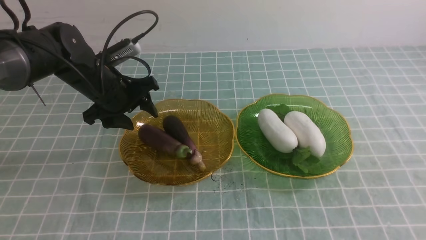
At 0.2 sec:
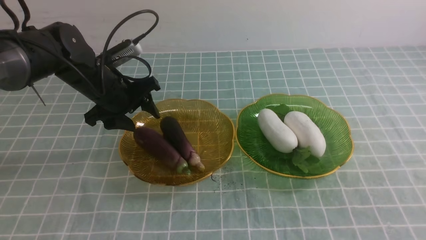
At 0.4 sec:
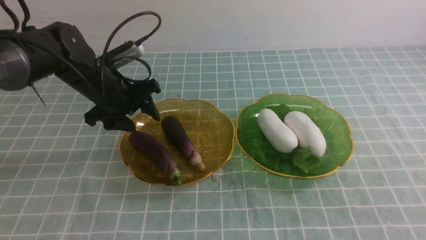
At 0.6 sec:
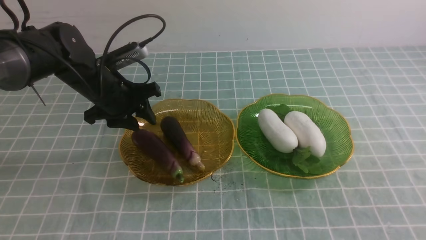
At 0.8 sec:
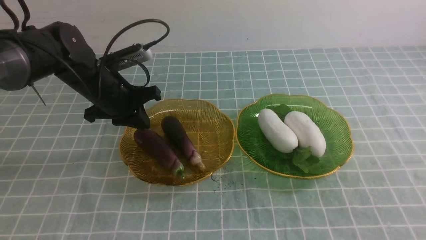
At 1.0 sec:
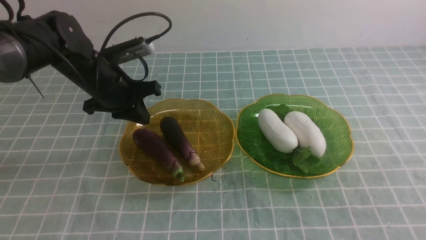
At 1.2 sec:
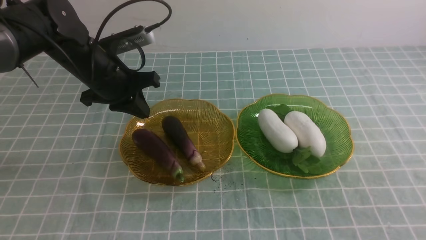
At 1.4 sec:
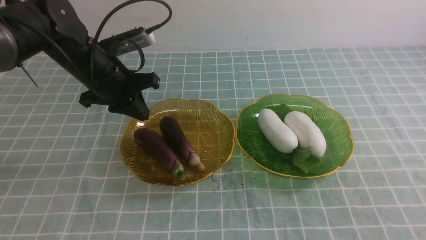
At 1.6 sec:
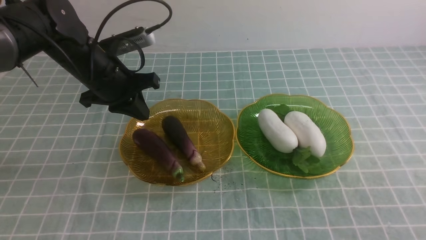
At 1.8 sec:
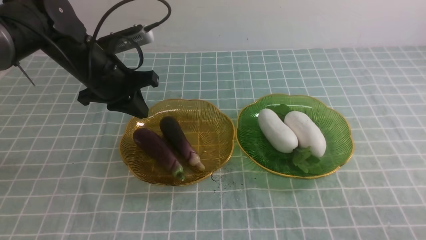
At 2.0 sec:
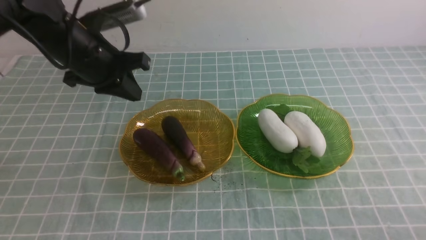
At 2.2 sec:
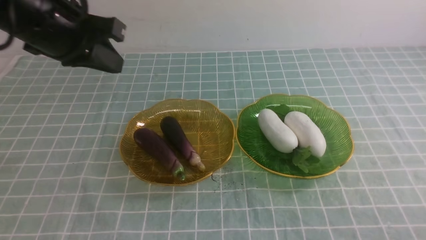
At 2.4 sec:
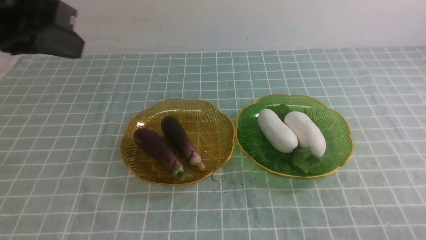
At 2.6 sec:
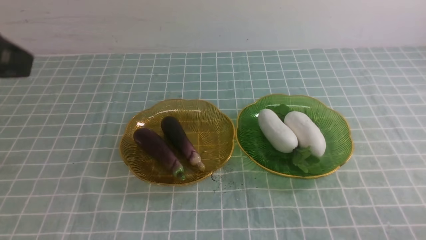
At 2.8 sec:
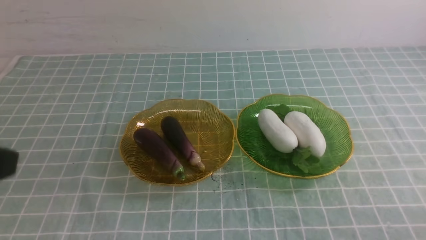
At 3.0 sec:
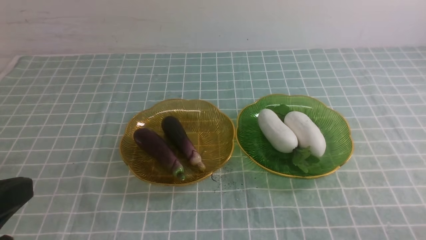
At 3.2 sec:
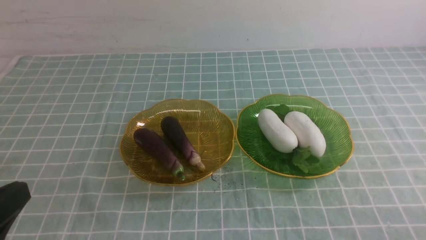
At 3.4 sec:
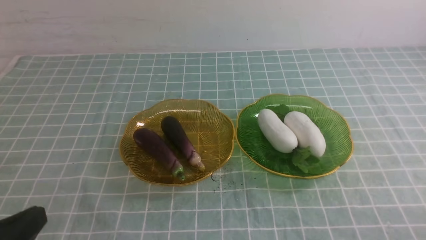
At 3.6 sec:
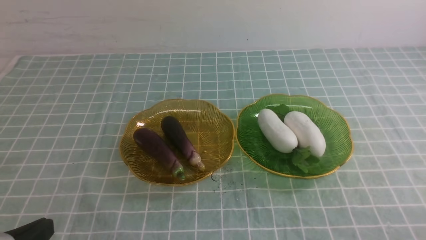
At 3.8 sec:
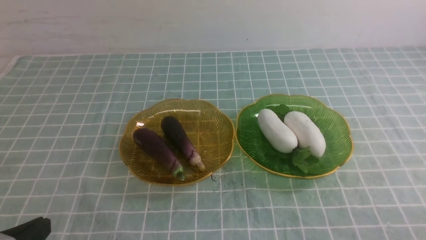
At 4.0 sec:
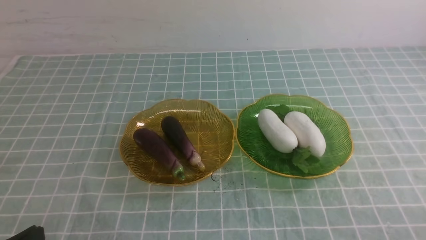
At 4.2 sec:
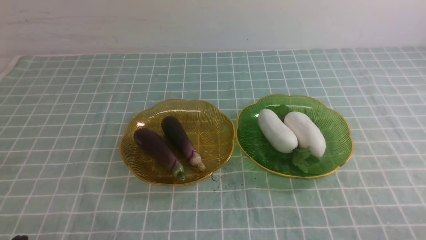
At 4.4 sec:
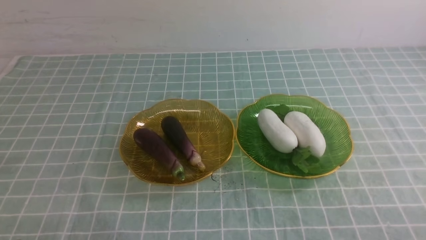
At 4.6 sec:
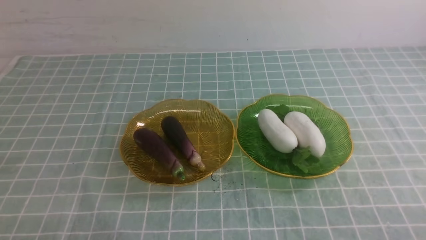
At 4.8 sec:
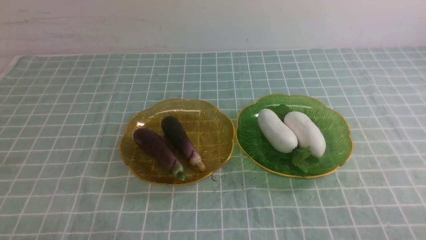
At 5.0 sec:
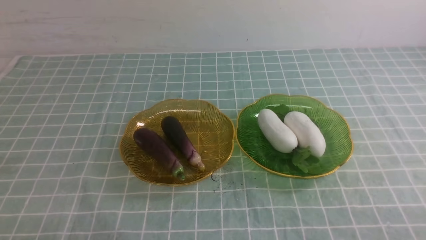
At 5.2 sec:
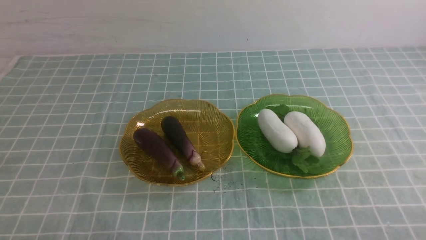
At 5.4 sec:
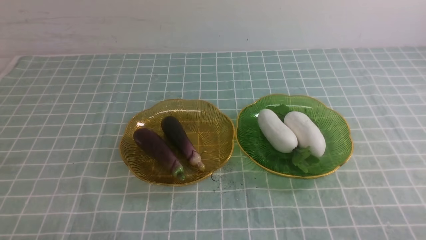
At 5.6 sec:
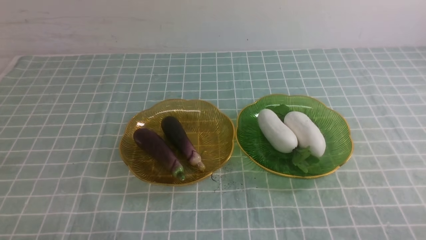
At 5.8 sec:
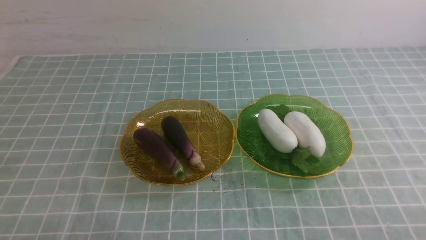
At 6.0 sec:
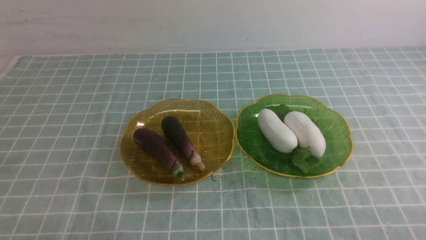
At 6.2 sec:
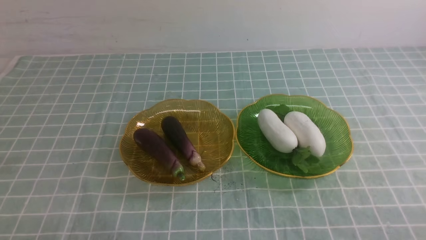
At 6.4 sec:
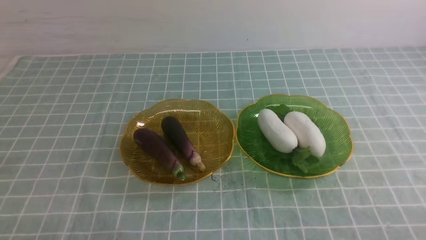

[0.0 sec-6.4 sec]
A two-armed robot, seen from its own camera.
0.0 sec to 1.6 sec: The left gripper closes up. Meanwhile the right gripper travels downward by about 15 cm.
1.6 sec to 3.2 sec: The right gripper is displaced downward by about 5 cm. The left gripper is displaced backward by approximately 35 cm.
3.2 sec to 4.8 sec: The left gripper heads downward, covering some 15 cm.
4.8 sec to 6.4 sec: Neither gripper changes place.
